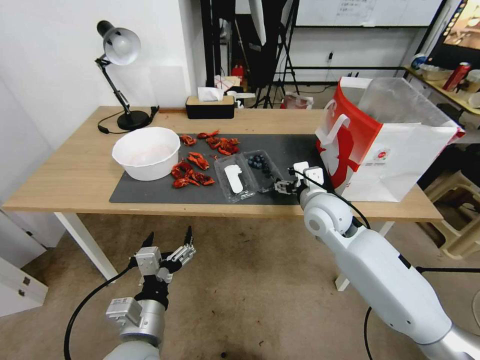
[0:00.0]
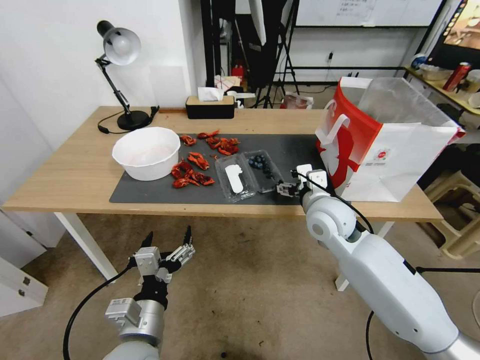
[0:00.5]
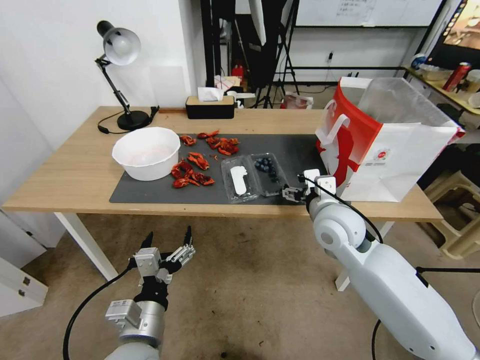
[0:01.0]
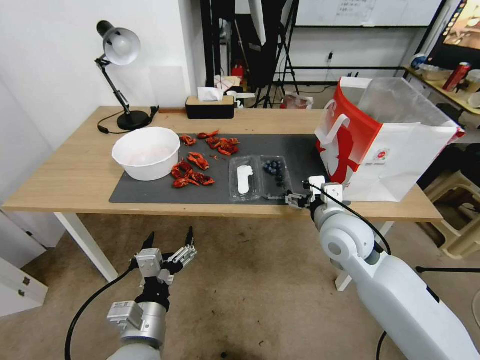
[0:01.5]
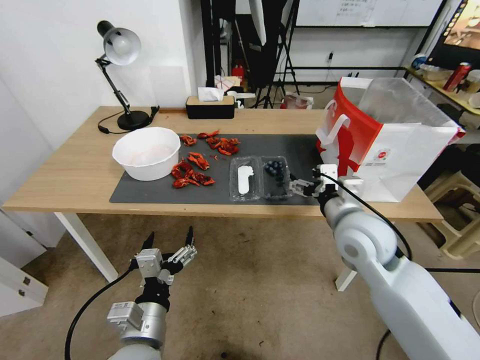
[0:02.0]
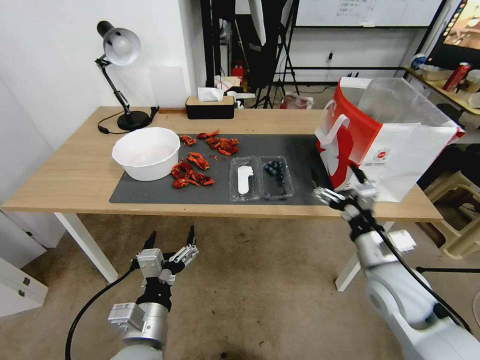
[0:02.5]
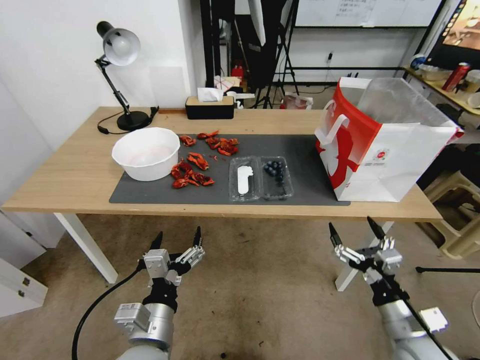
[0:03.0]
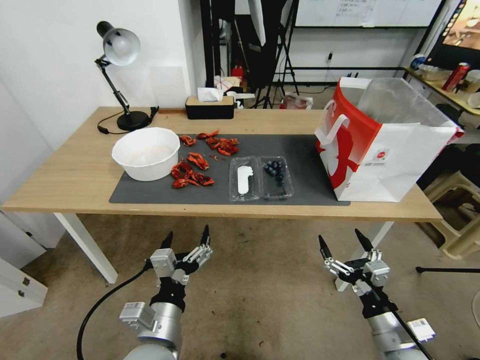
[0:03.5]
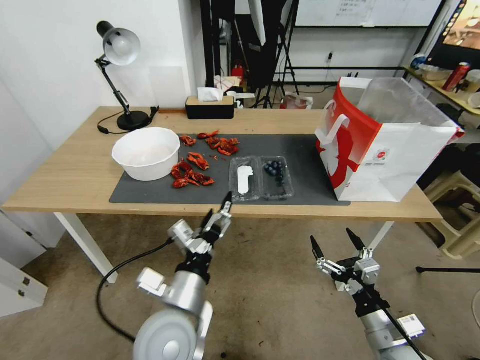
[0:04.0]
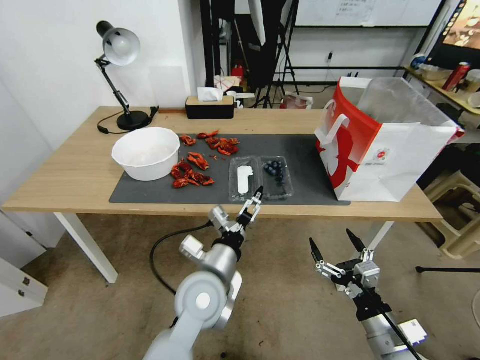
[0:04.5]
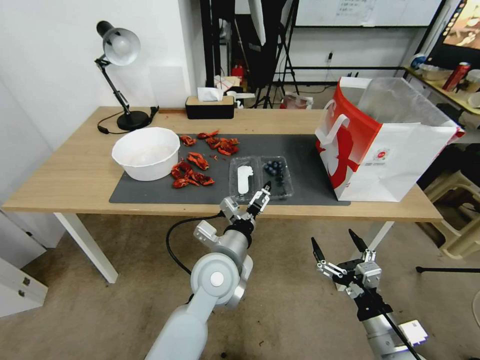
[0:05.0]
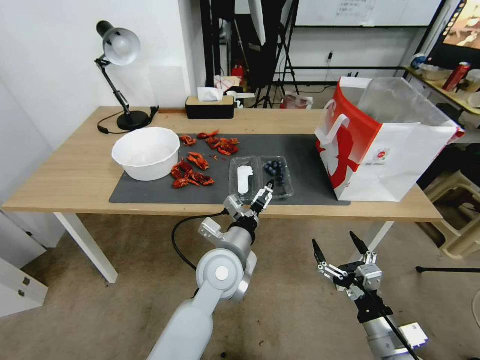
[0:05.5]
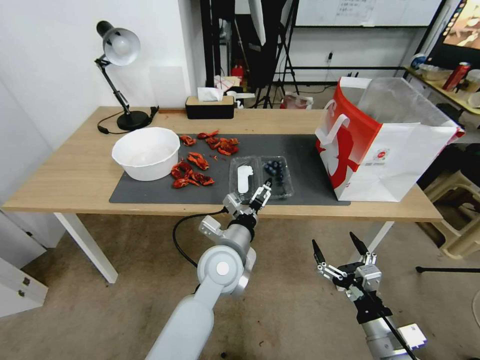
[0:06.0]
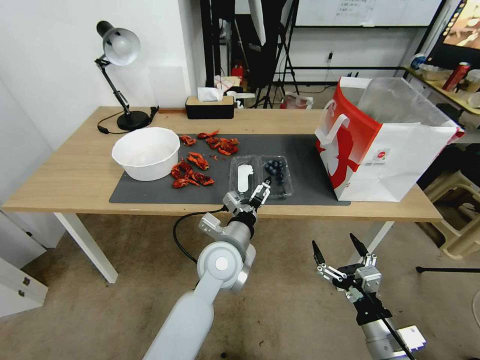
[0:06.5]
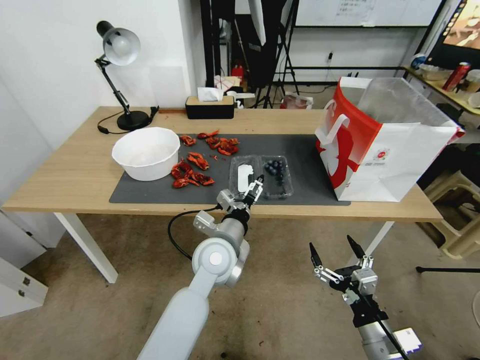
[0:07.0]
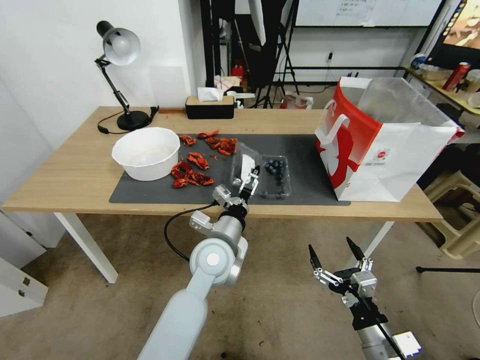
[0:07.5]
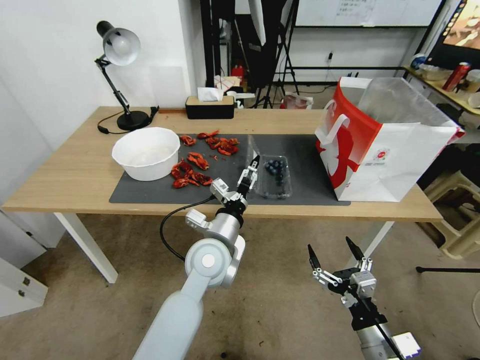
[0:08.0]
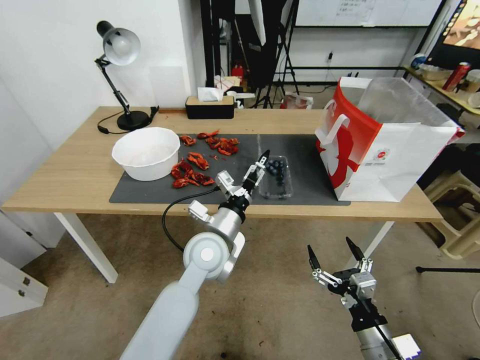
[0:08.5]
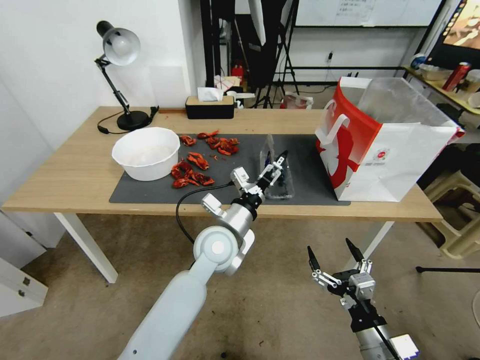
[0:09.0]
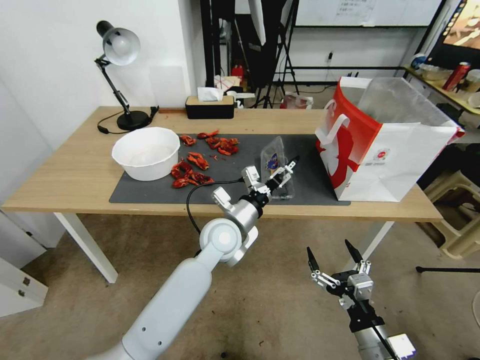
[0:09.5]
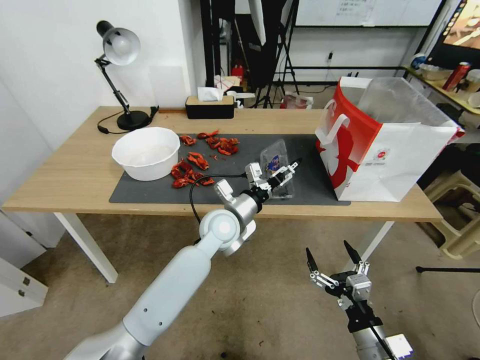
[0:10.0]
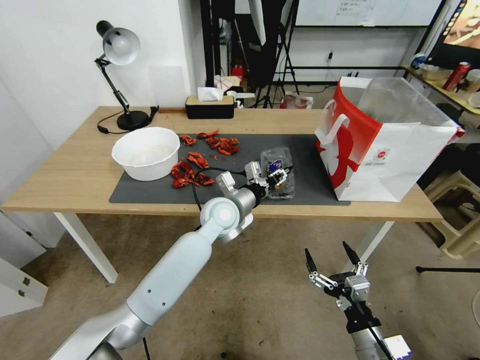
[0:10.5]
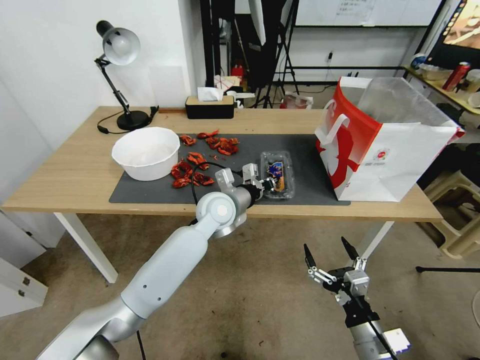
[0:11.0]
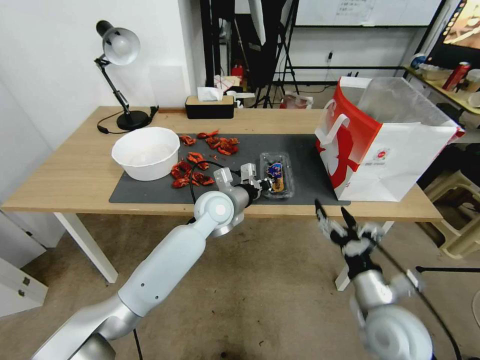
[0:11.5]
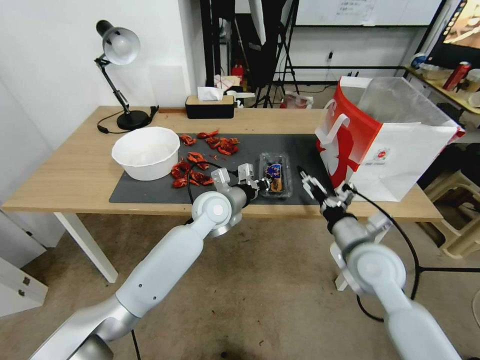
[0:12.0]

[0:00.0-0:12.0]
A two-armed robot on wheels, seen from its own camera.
Task of the whole recording: Close the takeout container lid, then place the container into the takeout bag.
0:00.0 to 0:02.0: The right gripper is displaced backward by roughly 10 cm.
0:02.0 to 0:04.0: The right gripper shifts roughly 25 cm backward, downward and to the right, while the left gripper heads to the right, covering about 5 cm.
0:04.0 to 0:06.0: The left gripper moves forward and to the right, roughly 15 cm.
0:06.0 to 0:08.0: The grippers make only small movements.
0:08.0 to 0:10.0: The left gripper goes roughly 10 cm forward.
0:10.0 to 0:12.0: The right gripper heads forward and upward, covering some 20 cm; the left gripper closes.

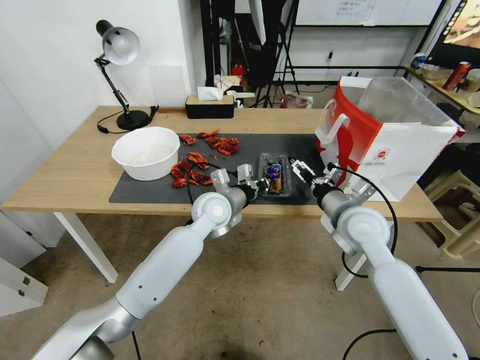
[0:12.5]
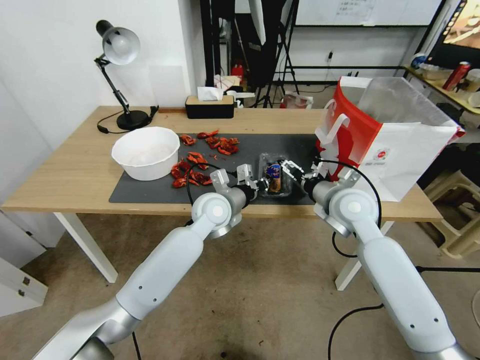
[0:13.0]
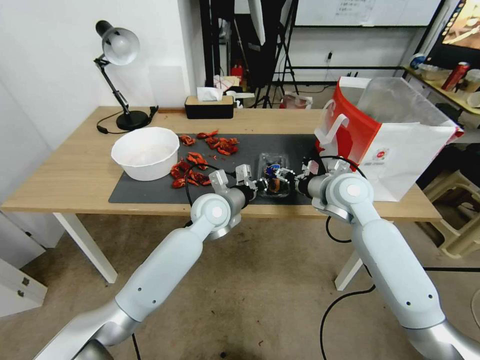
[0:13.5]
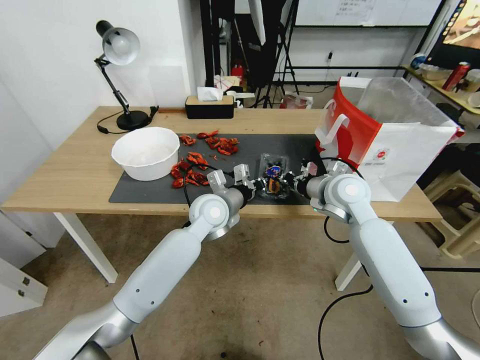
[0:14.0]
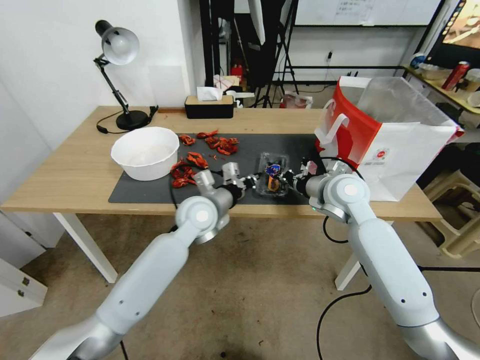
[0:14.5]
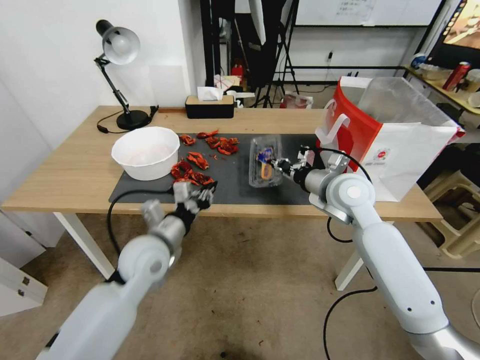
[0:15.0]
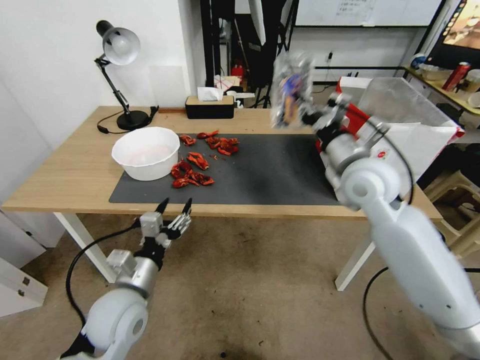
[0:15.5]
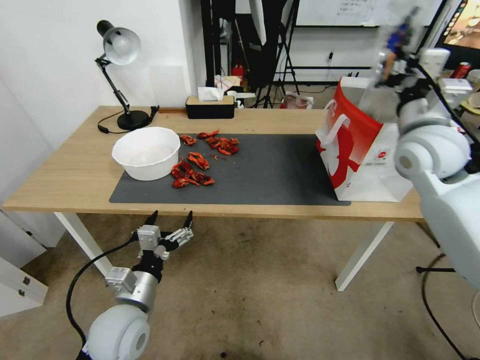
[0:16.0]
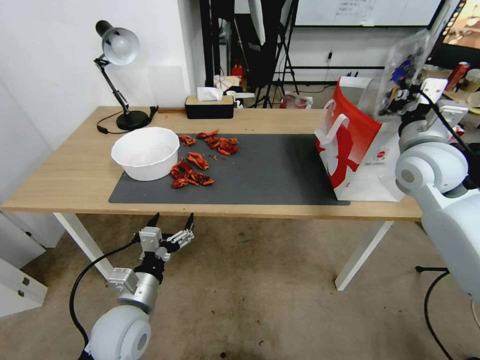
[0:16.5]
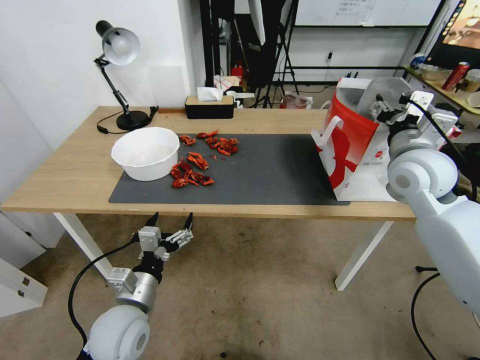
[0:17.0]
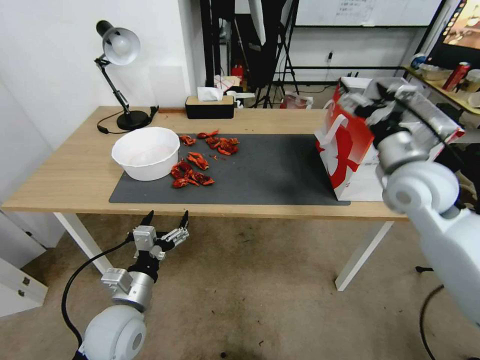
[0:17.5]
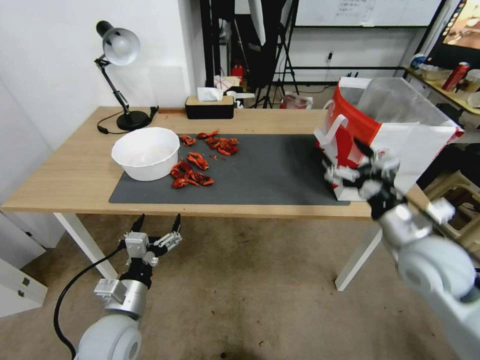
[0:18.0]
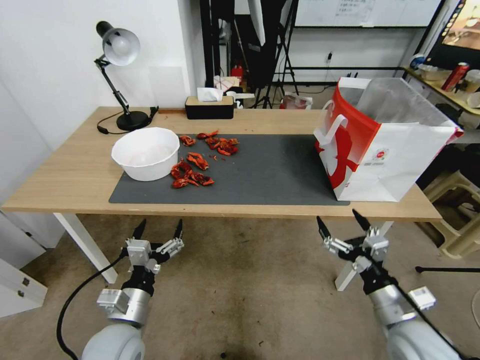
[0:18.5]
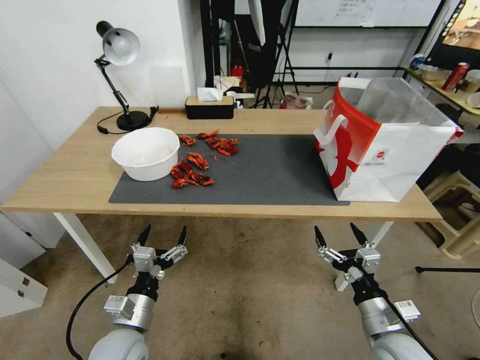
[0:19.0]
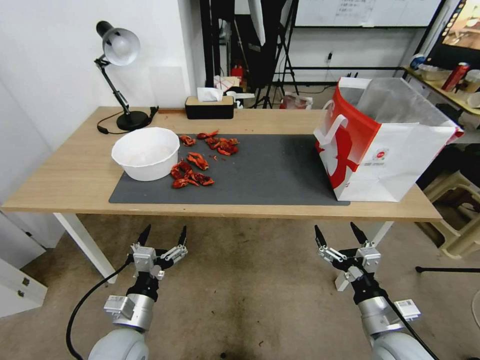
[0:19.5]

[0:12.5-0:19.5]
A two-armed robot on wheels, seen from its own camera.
Task of the whole recording: Close the takeout container lid, then place the container into the takeout bag.
0:12.5 to 0:14.5: The left gripper changes place by some 5 cm; the right gripper shifts roughly 10 cm forward, and closes up.
0:14.5 to 0:16.0: The right gripper moves upward and to the right, about 15 cm; the left gripper moves backward and to the left, about 25 cm, and opens.
0:16.0 to 0:17.5: The right gripper changes place by roughly 5 cm, and opens its fingers.
0:17.5 to 0:19.5: The right gripper moves downward and backward, about 35 cm, while the left gripper ends up roughly 5 cm from where it was.

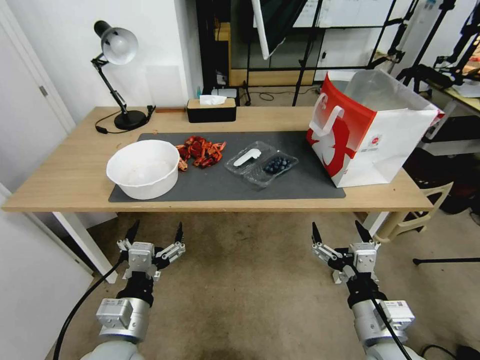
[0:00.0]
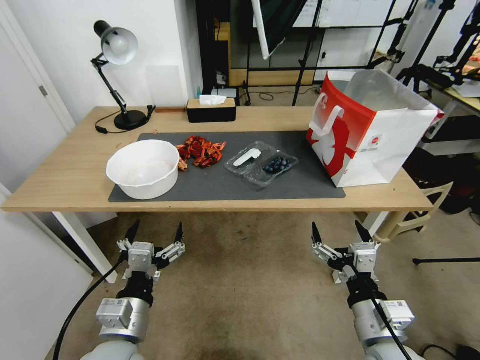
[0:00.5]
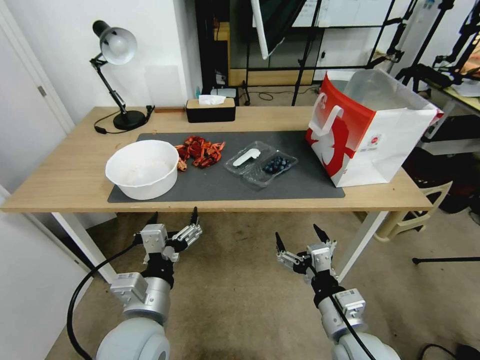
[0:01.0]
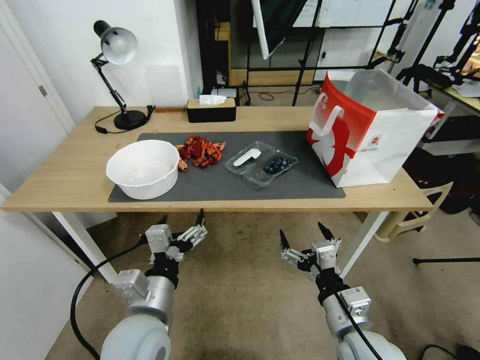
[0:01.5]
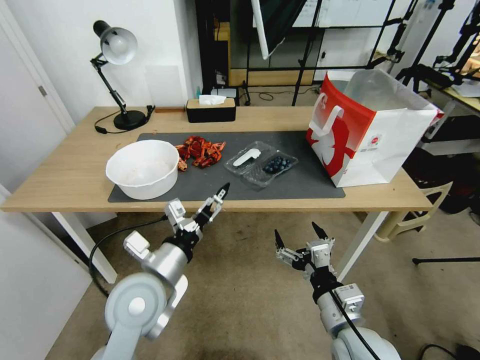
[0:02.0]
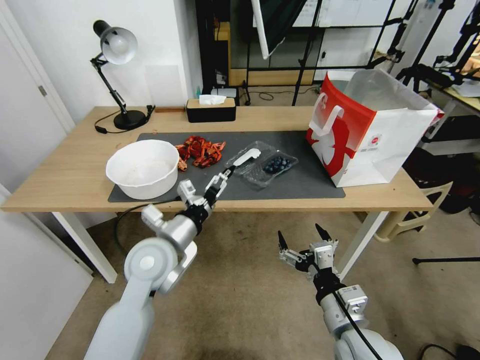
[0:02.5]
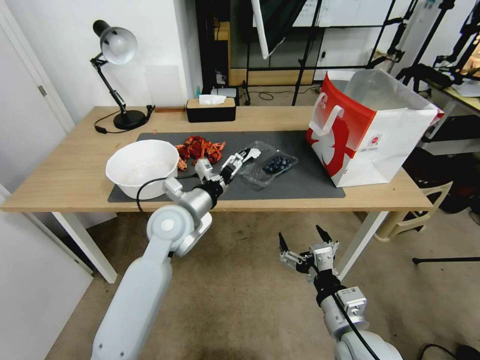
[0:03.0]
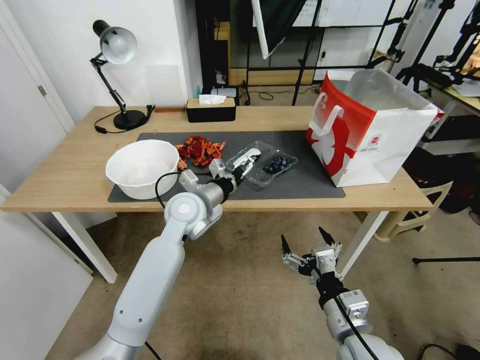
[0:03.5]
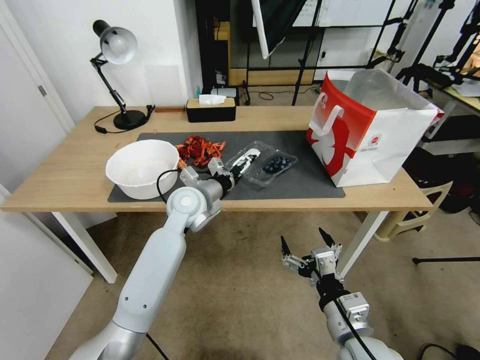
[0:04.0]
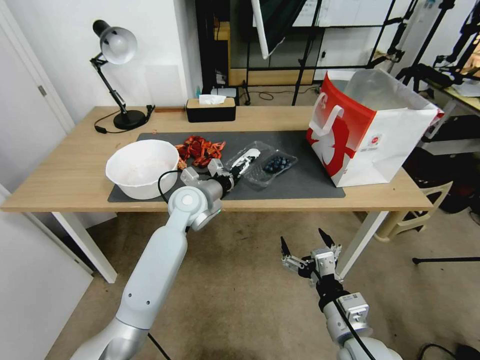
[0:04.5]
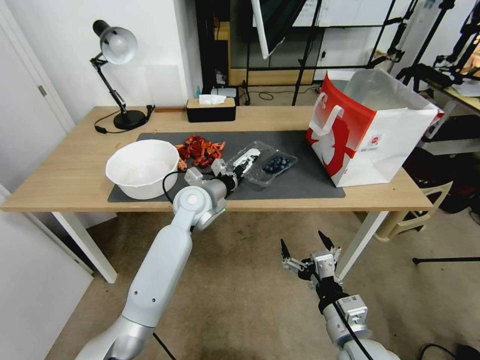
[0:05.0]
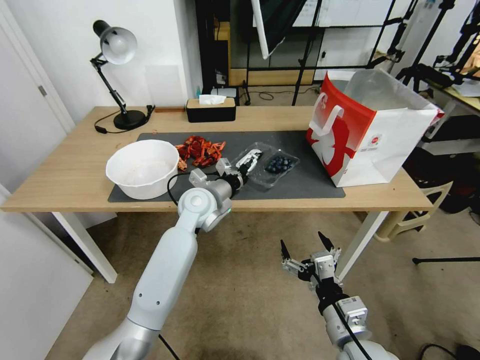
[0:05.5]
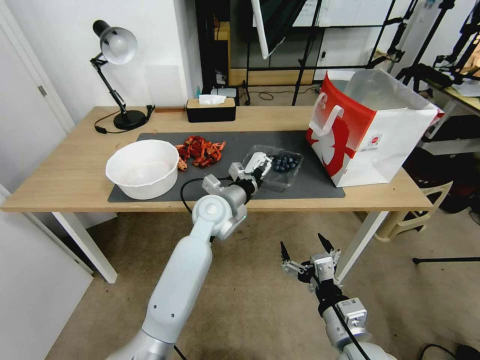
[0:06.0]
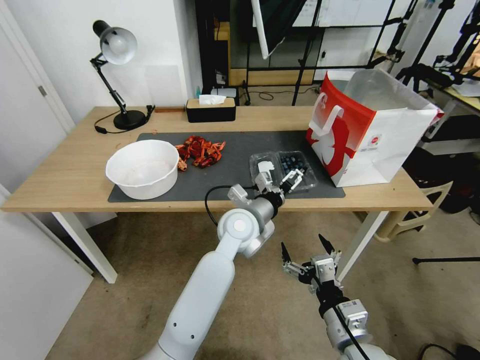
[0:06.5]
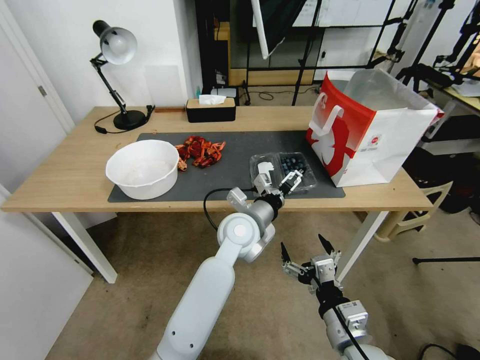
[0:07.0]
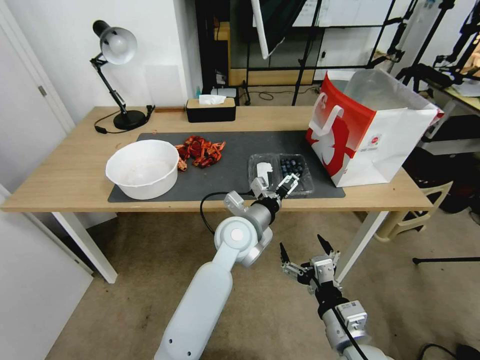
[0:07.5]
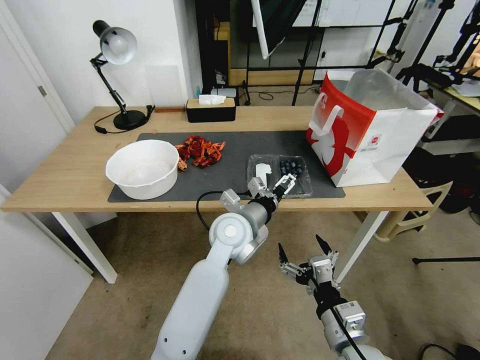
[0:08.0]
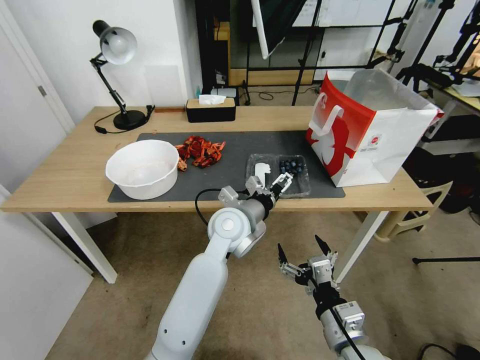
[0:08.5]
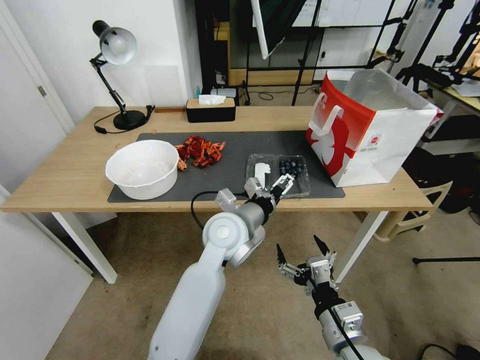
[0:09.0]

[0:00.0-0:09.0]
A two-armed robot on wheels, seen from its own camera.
Task of the whole recording: Close the takeout container lid, then place the container into the takeout bag.
0:02.0 to 0:04.5: The left gripper heads forward, covering roughly 20 cm.
0:04.5 to 0:07.0: The left gripper moves to the right and backward, approximately 15 cm.
0:07.0 to 0:09.0: There are only small adjustments of the grippers.
